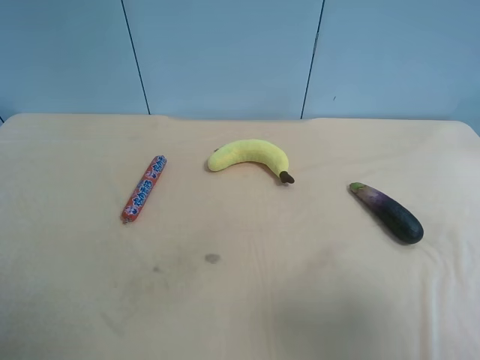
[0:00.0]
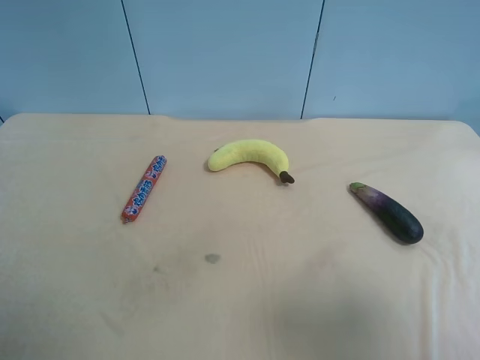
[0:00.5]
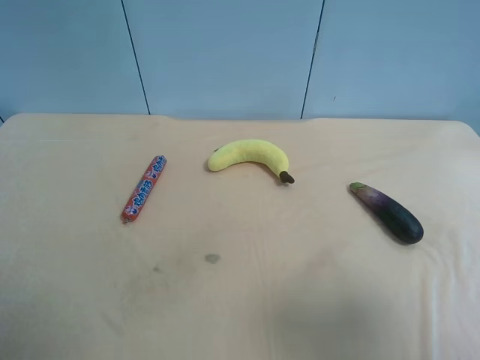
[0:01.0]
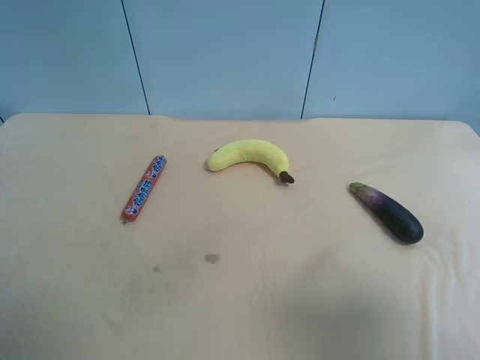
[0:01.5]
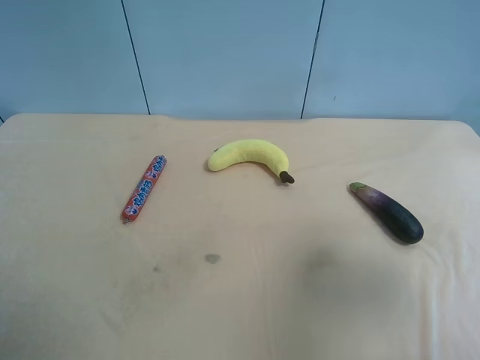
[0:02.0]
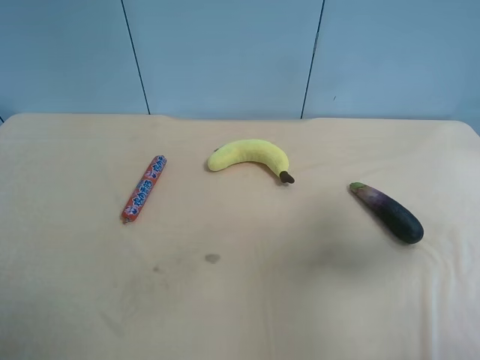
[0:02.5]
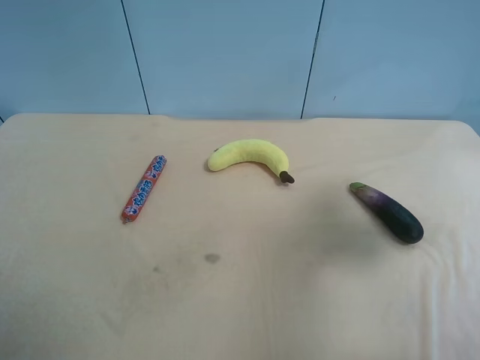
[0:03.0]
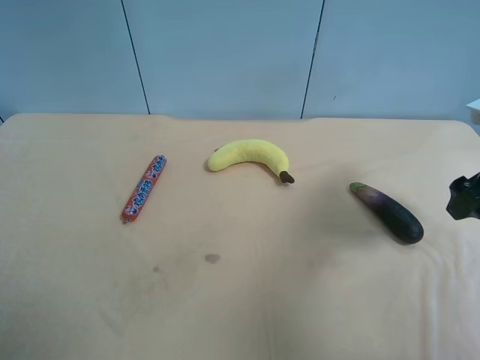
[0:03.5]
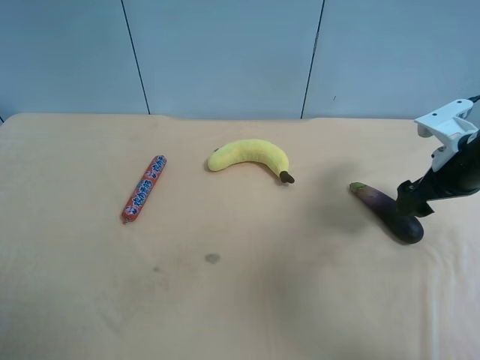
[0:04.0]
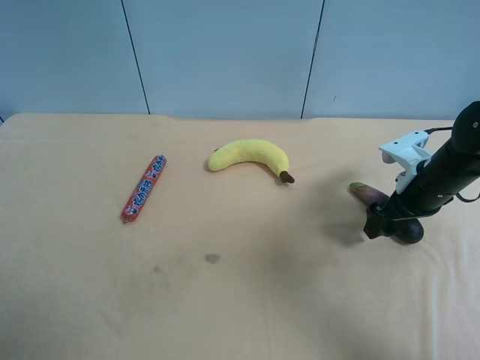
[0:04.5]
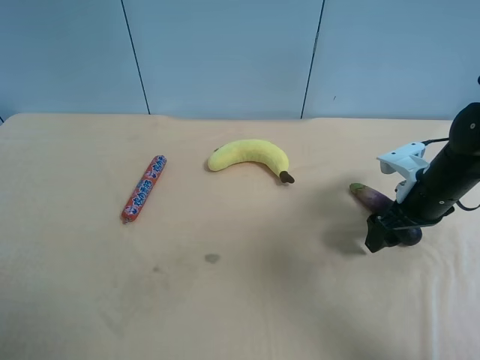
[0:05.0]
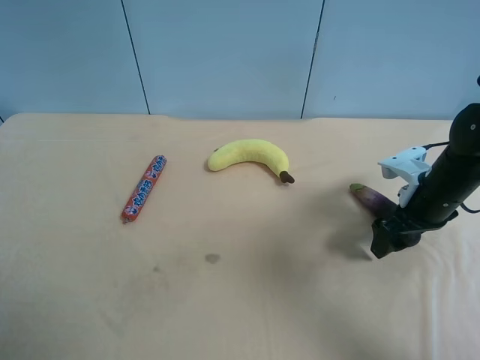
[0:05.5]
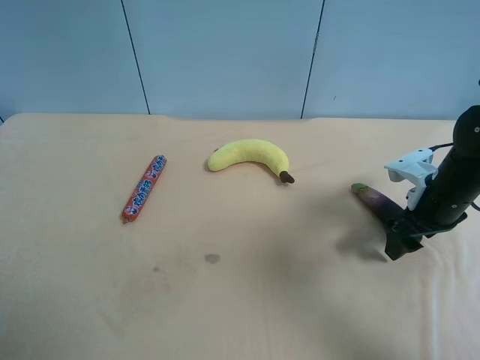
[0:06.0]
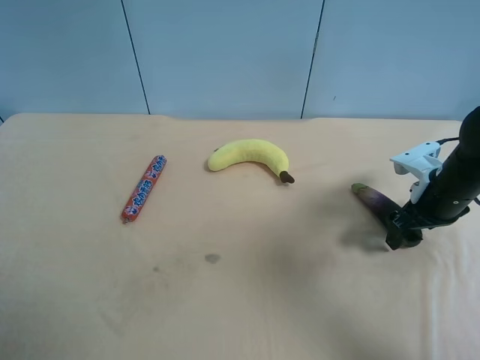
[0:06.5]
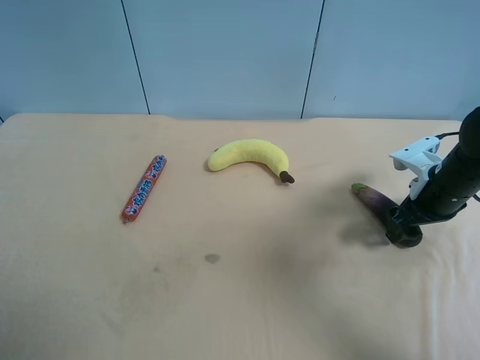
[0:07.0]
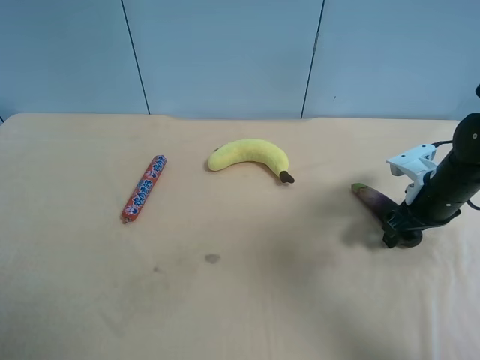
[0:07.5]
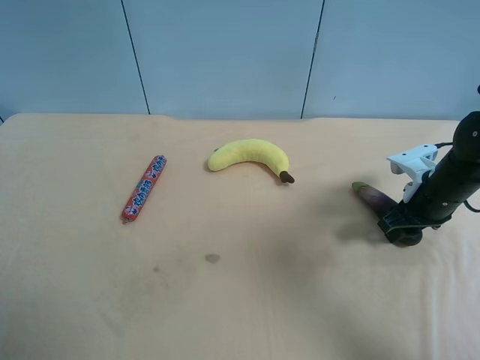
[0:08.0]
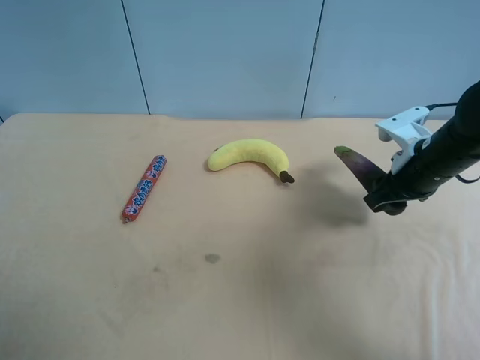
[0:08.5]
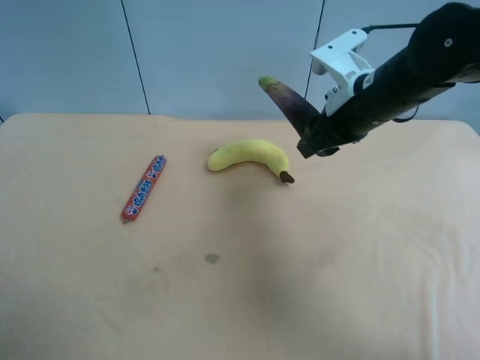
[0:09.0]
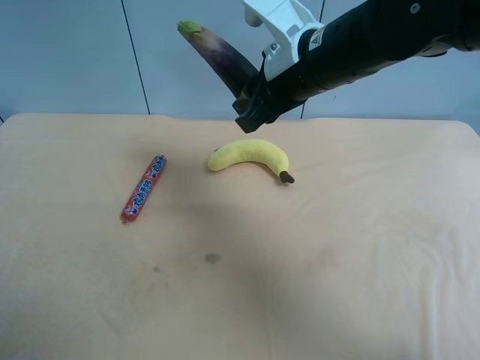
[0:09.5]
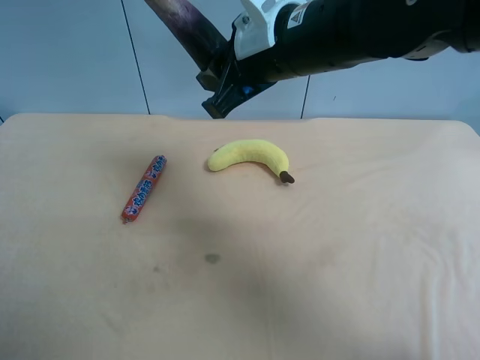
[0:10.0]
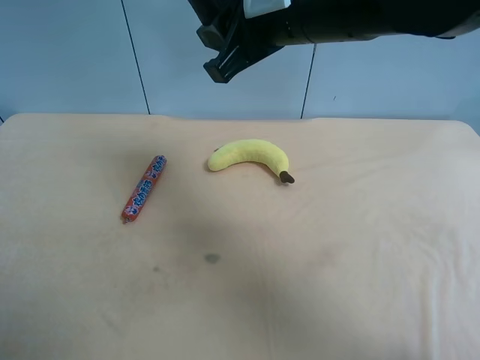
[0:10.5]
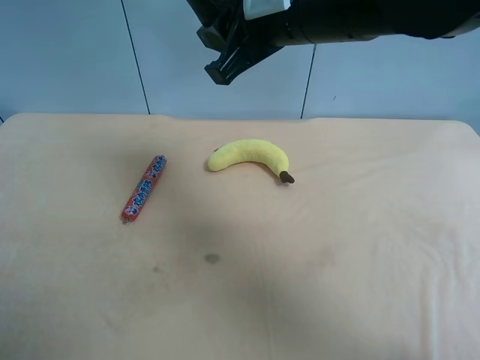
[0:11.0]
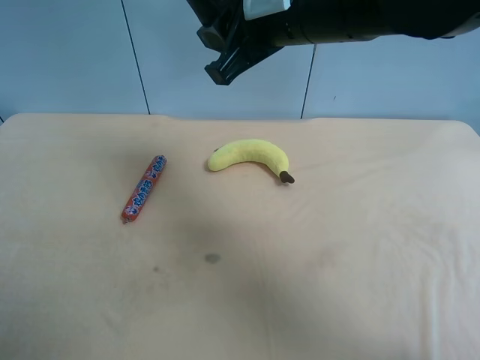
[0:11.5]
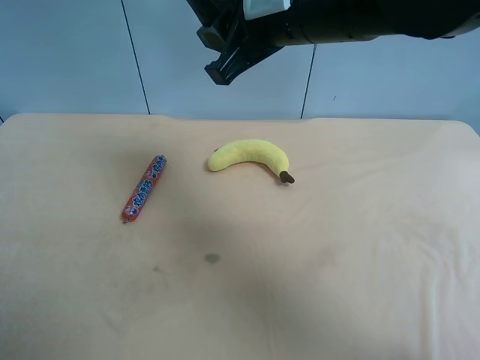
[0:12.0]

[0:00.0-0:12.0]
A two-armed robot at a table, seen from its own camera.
Task of the whole recording: use the right gripper to pick up the item and transfer it from the right gripper to the left gripper.
0:00.0 to 0:02.0: The right gripper is displaced forward by roughly 10 cm.
0:02.0 to 0:04.0: The right gripper is displaced forward and downward by about 25 cm.
0:04.0 to 0:06.0: The right gripper moves downward, roughly 5 cm, and closes its fingers.
0:06.0 to 0:08.0: The right gripper closes.
0:08.0 to 0:10.0: The right gripper shifts some 30 cm to the left and upward.
0:10.0 to 0:12.0: There are only small adjustments of the grippers.

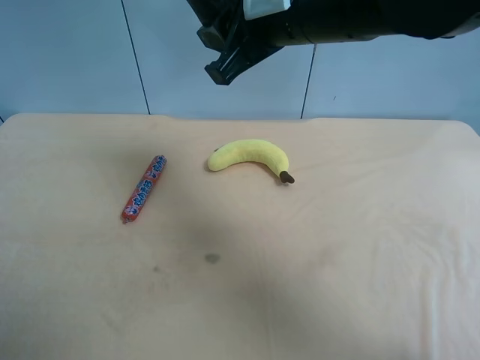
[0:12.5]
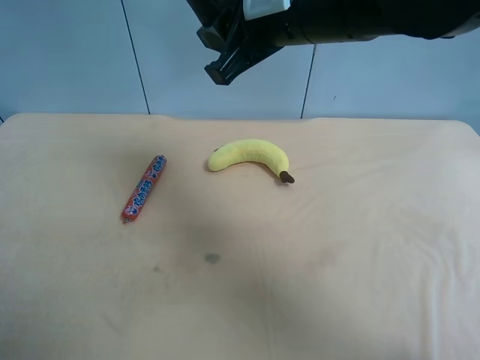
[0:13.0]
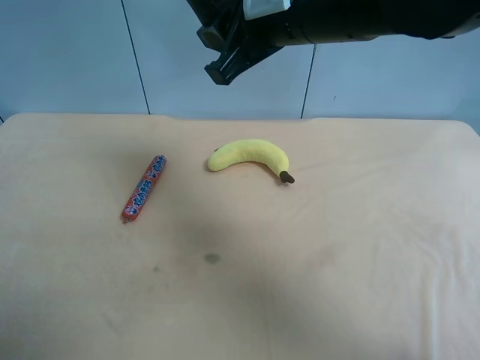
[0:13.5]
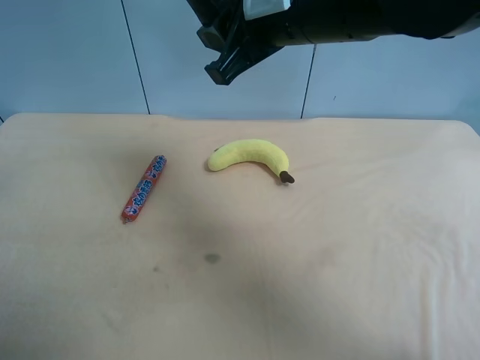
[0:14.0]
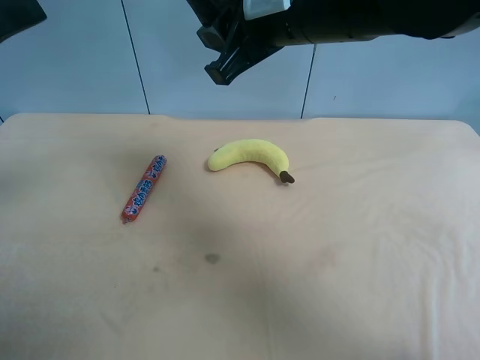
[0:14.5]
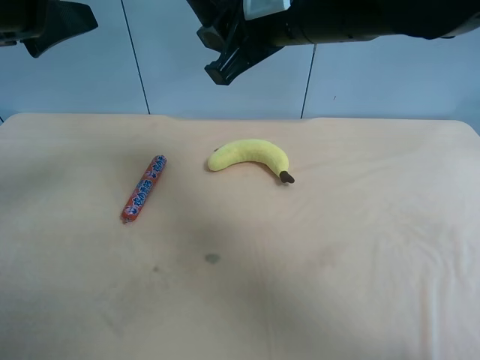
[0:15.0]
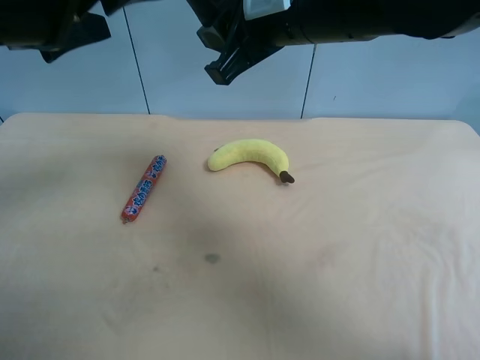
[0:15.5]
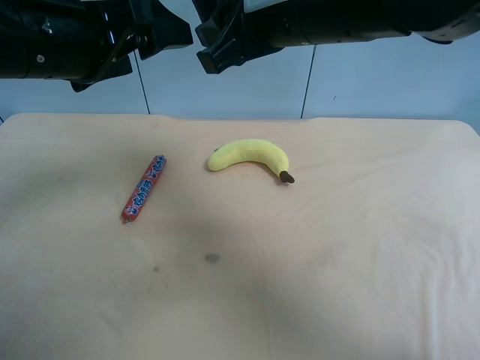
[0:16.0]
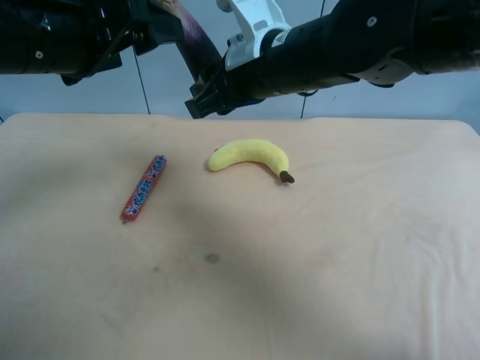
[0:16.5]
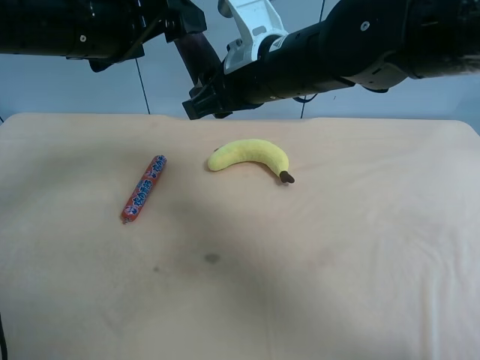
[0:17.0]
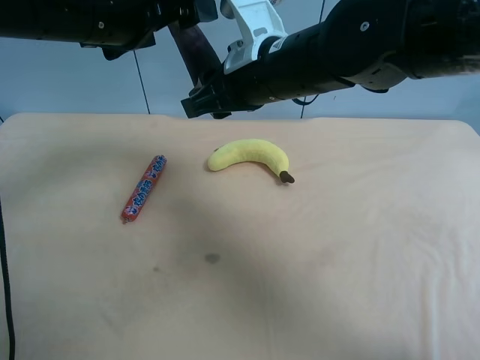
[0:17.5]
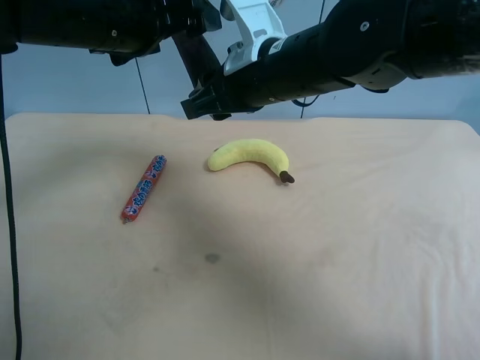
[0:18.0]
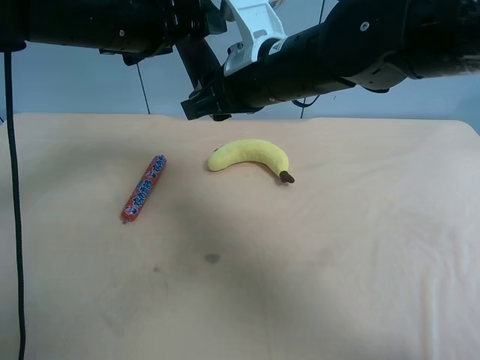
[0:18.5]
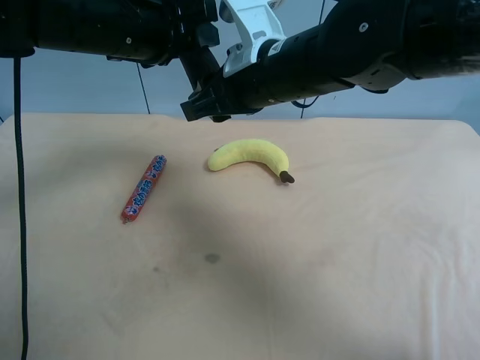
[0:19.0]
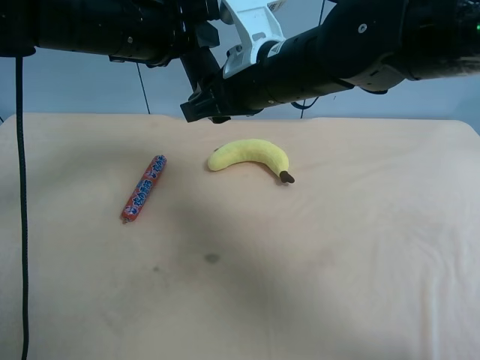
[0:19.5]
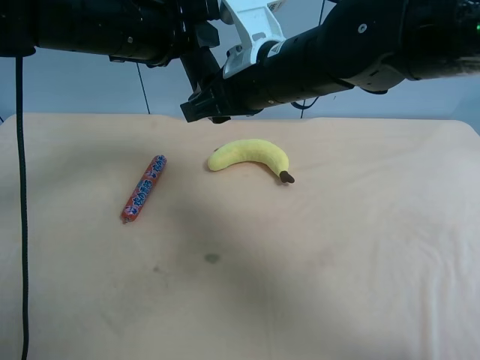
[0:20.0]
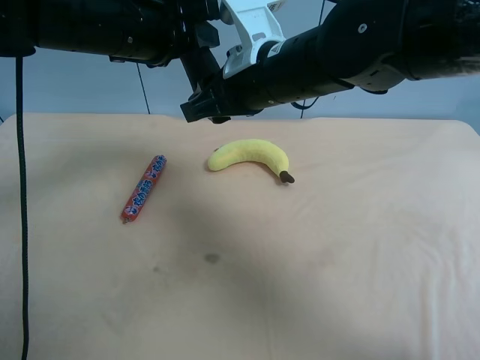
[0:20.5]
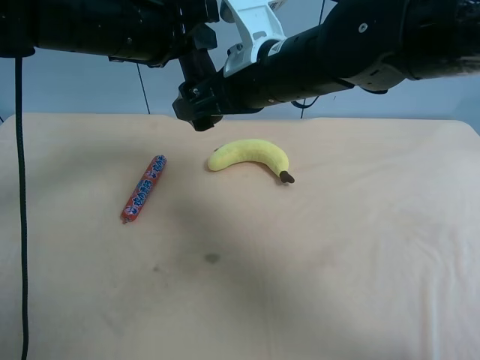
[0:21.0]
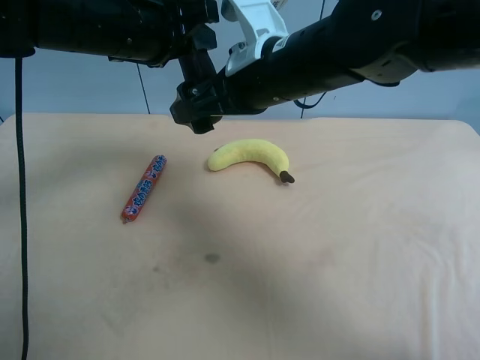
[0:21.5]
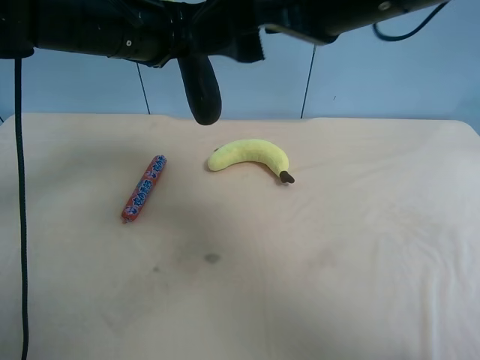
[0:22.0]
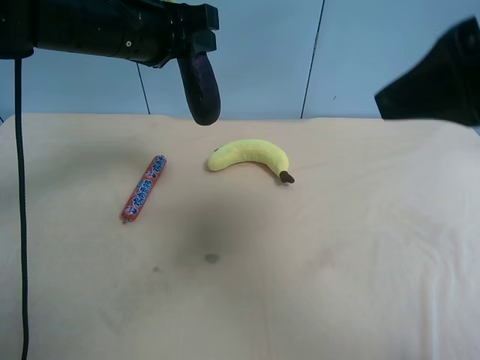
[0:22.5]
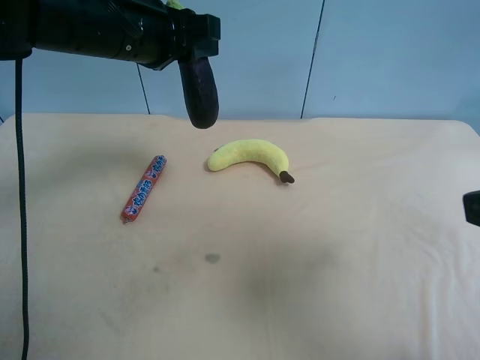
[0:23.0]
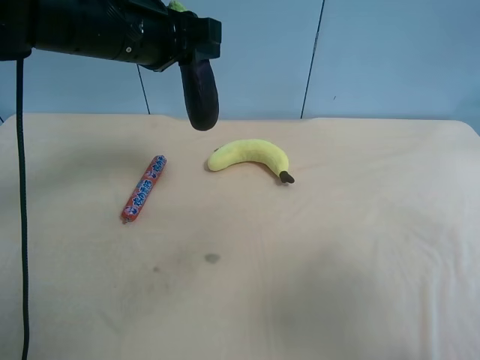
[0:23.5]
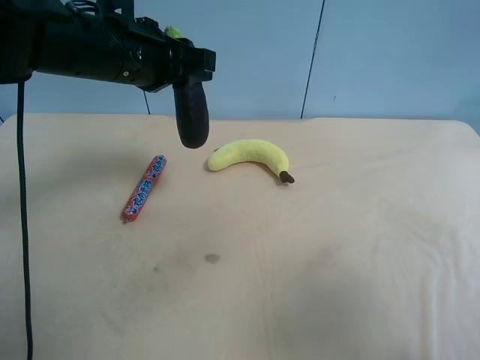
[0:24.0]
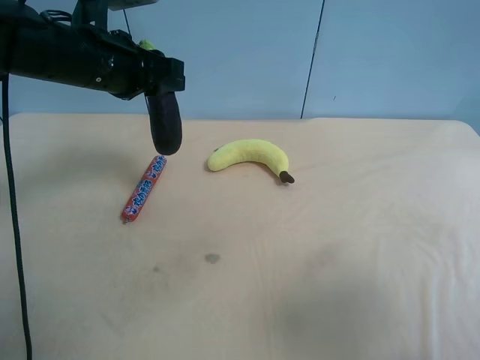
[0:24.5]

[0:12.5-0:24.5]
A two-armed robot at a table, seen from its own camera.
Task of the whole recording: use the right gripper to pick up the item and transfer it from the right gripper to the left gripper.
0:12.5 to 0:14.5: The left gripper is displaced forward and to the right by approximately 20 cm.
0:14.5 to 0:16.5: The right gripper heads downward, covering about 5 cm. Meanwhile the left gripper travels forward and to the right by approximately 10 cm.
0:16.5 to 0:18.5: The left gripper shifts some 5 cm forward.
0:18.5 to 0:20.5: The left gripper closes its fingers.
0:20.5 to 0:22.5: The right gripper moves backward, to the right and upward, roughly 25 cm, and opens its fingers.
0:22.5 to 0:24.5: The left gripper shifts by roughly 5 cm, while the right gripper is displaced backward, to the right and downward by approximately 20 cm.

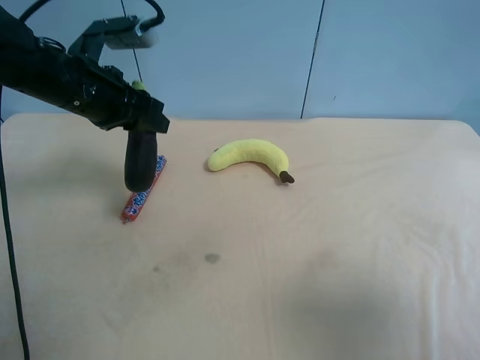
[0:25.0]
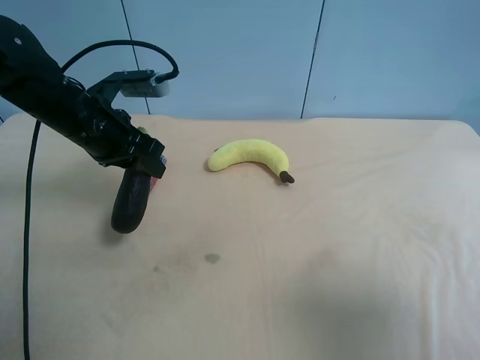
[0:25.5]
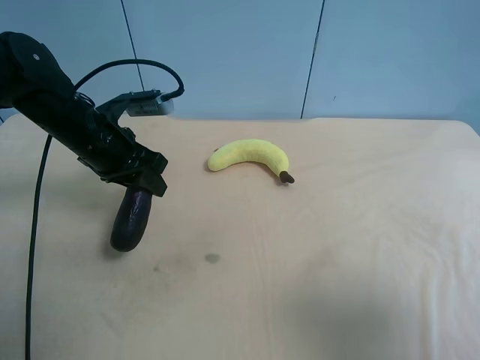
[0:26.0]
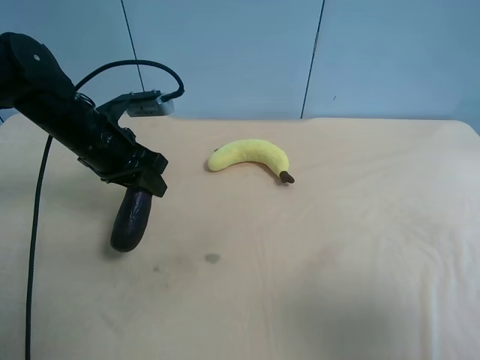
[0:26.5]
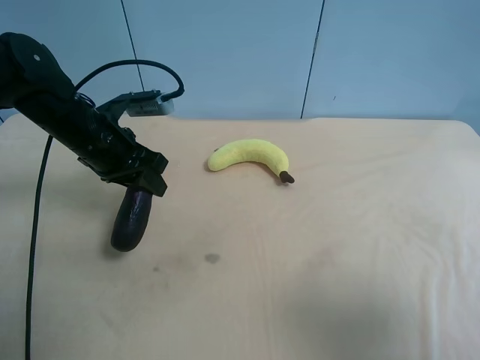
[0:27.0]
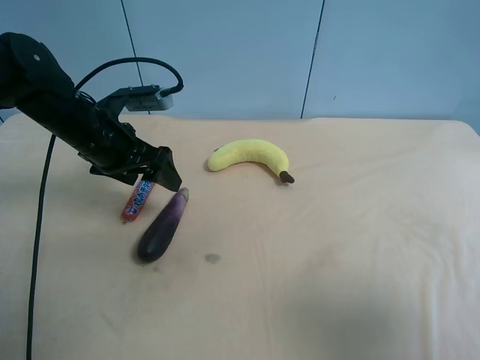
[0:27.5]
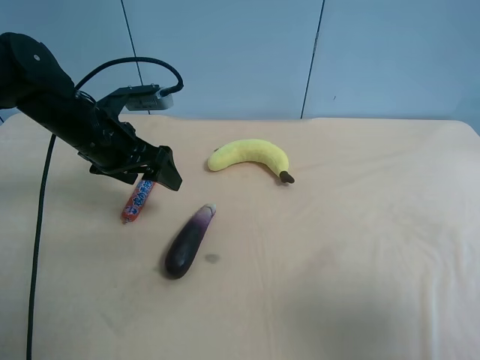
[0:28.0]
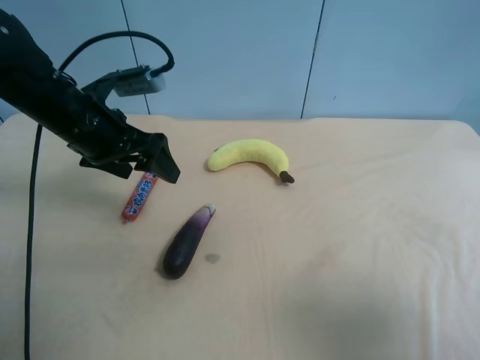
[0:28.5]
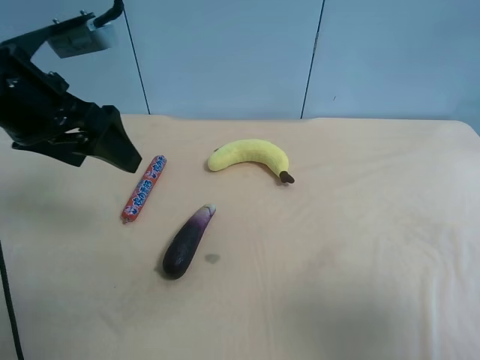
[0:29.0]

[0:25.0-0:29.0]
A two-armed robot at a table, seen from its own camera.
Task of the whole recording: use the right gripper to pick up the item and transfer it from the right gripper to the left gripper.
0:25.0 to 0:27.0: The left gripper goes about 5 cm downward.
0:27.0 to 0:29.0: The left gripper travels upward and backward by about 15 cm, and opens up.
